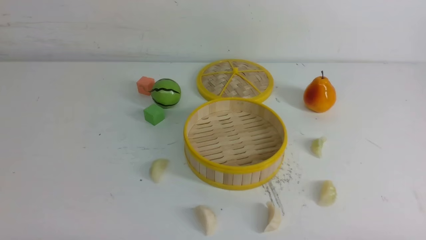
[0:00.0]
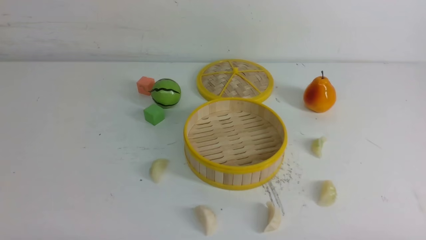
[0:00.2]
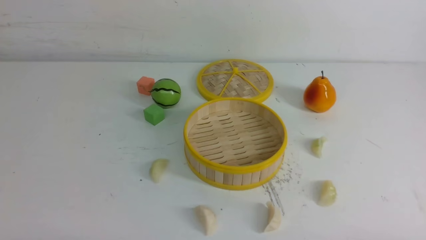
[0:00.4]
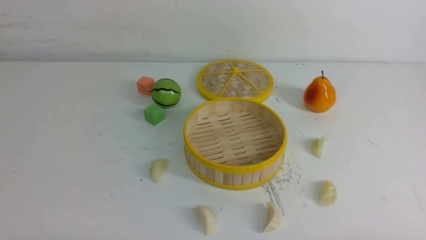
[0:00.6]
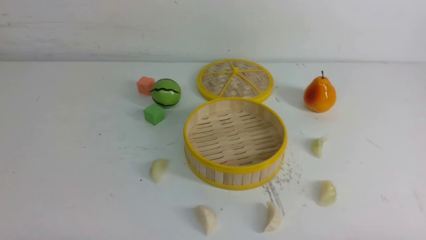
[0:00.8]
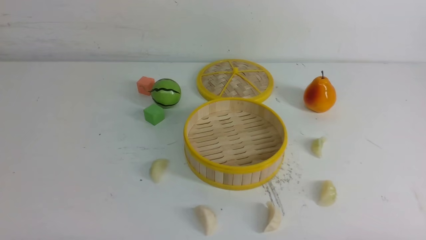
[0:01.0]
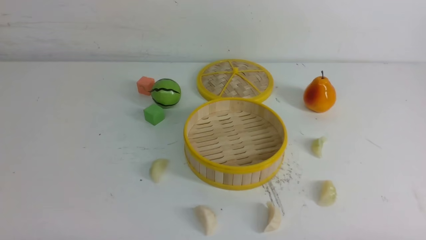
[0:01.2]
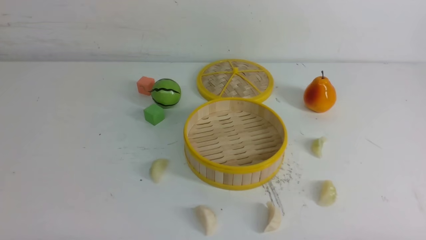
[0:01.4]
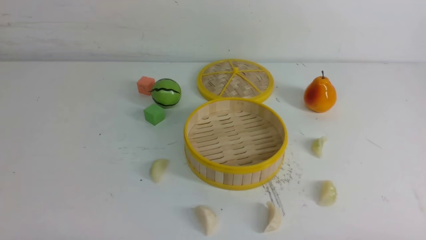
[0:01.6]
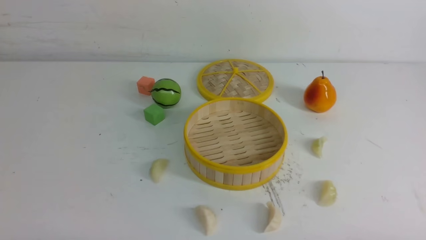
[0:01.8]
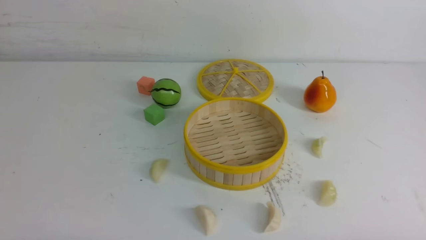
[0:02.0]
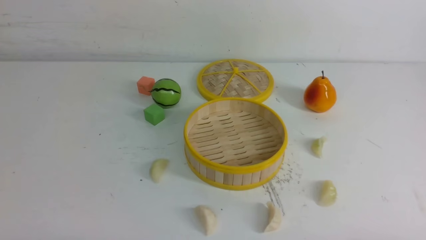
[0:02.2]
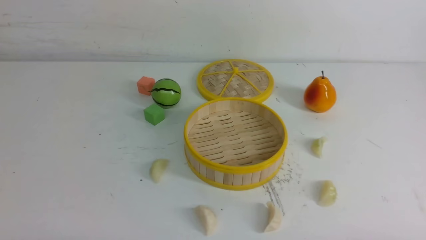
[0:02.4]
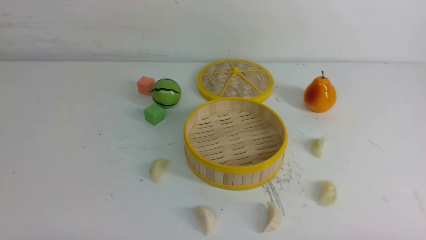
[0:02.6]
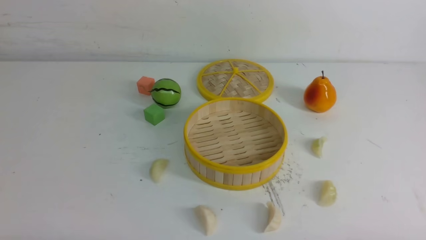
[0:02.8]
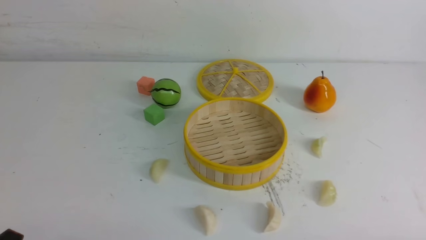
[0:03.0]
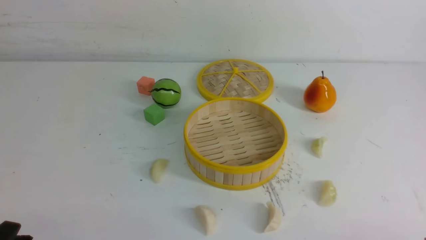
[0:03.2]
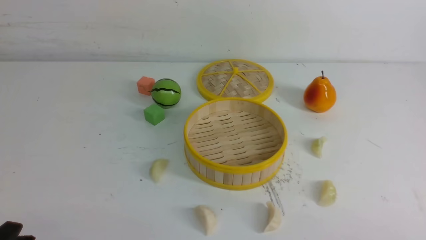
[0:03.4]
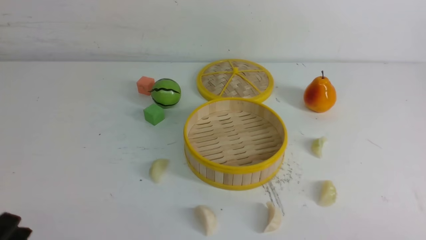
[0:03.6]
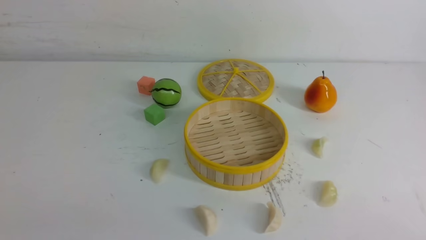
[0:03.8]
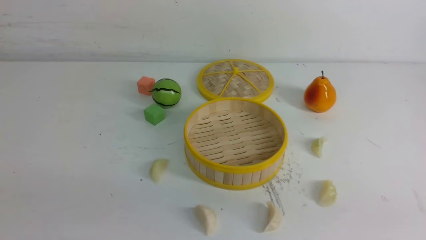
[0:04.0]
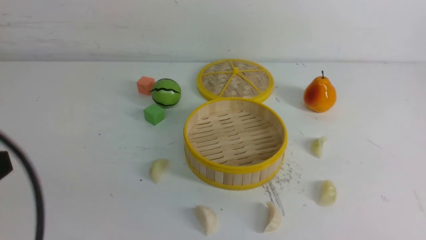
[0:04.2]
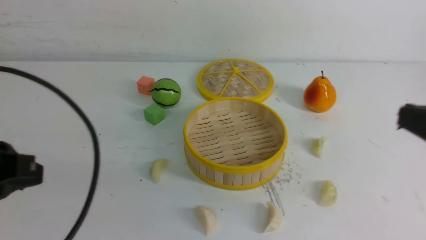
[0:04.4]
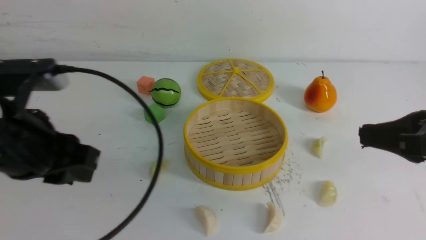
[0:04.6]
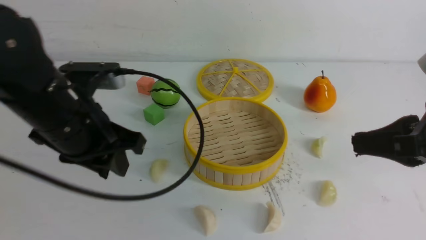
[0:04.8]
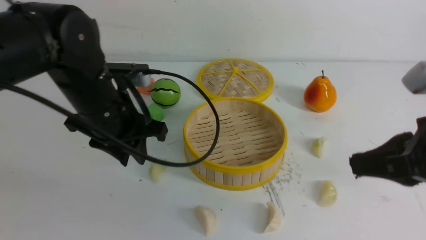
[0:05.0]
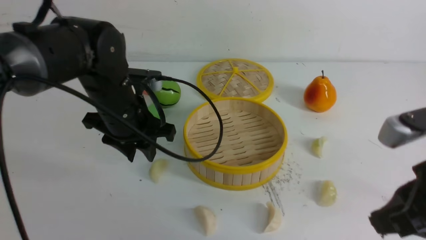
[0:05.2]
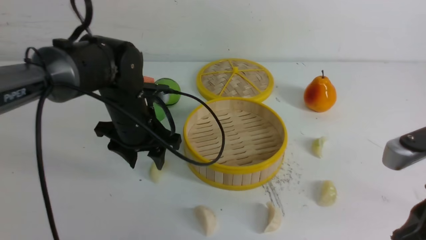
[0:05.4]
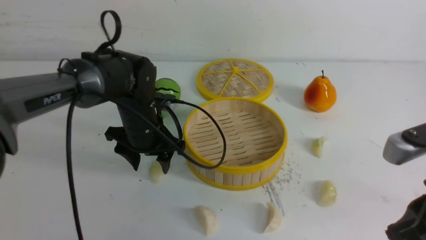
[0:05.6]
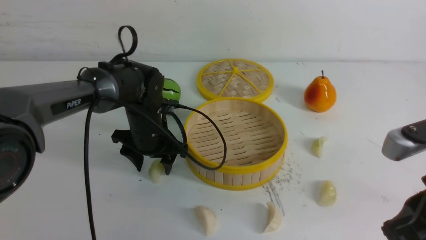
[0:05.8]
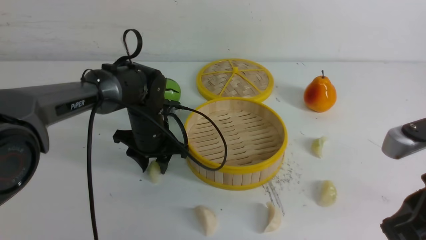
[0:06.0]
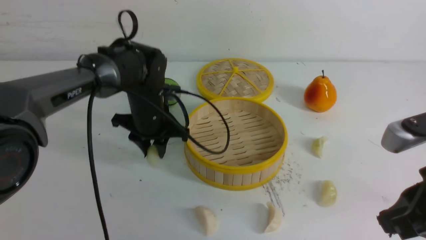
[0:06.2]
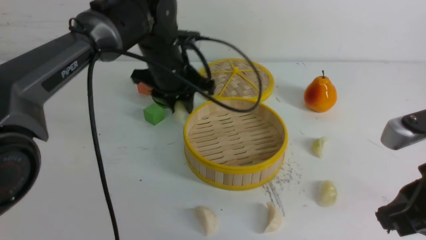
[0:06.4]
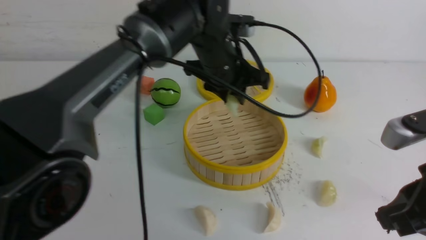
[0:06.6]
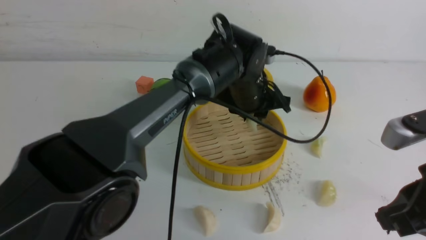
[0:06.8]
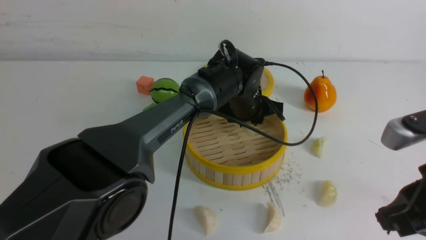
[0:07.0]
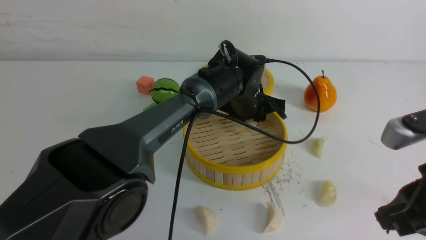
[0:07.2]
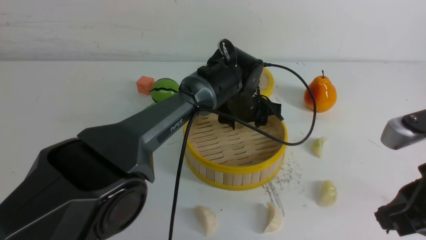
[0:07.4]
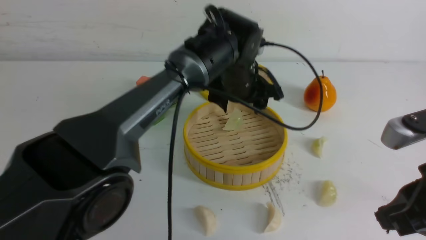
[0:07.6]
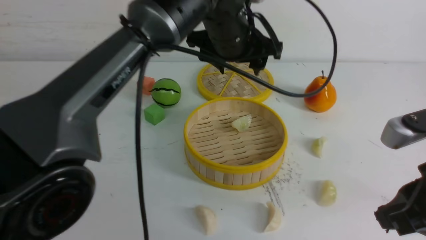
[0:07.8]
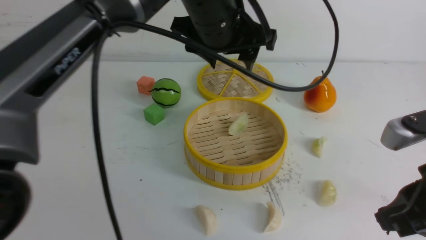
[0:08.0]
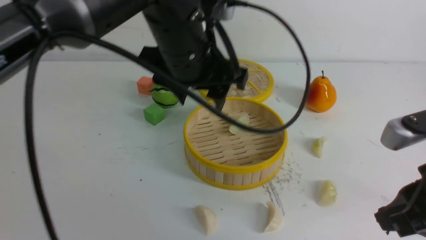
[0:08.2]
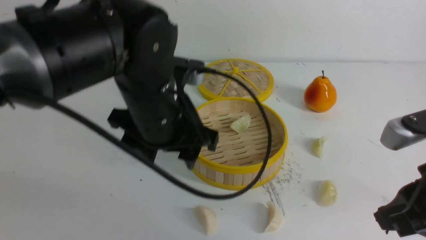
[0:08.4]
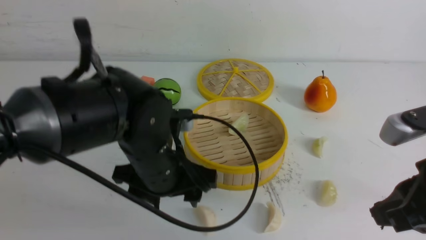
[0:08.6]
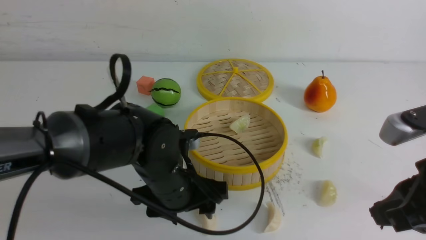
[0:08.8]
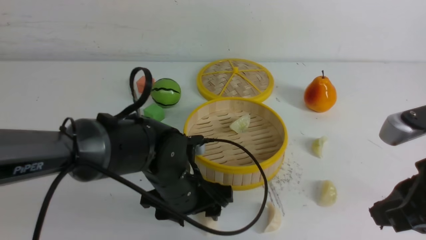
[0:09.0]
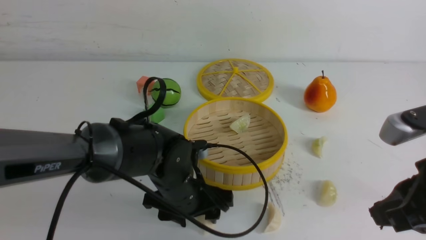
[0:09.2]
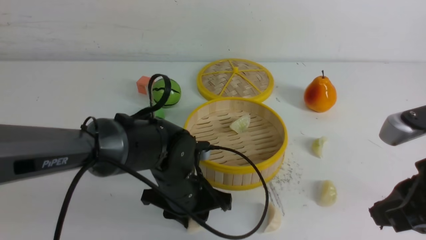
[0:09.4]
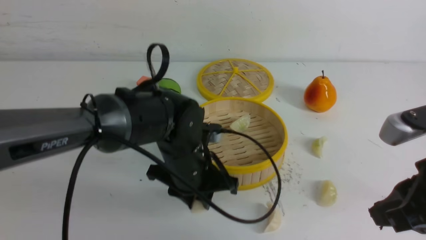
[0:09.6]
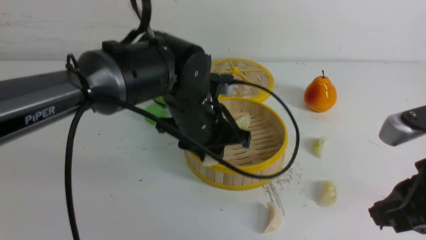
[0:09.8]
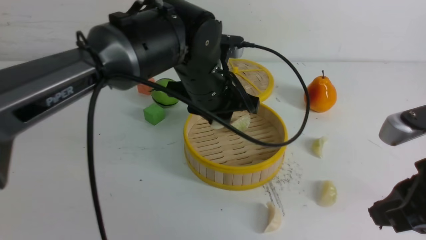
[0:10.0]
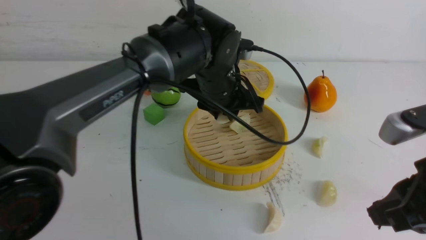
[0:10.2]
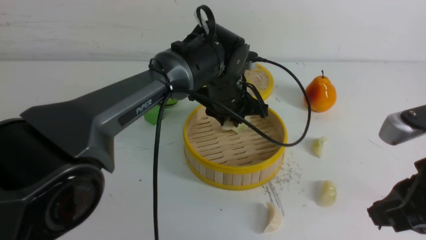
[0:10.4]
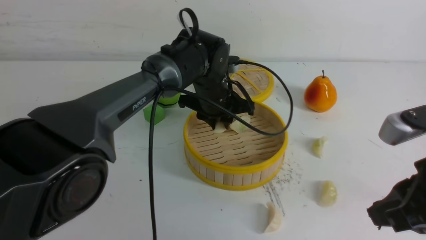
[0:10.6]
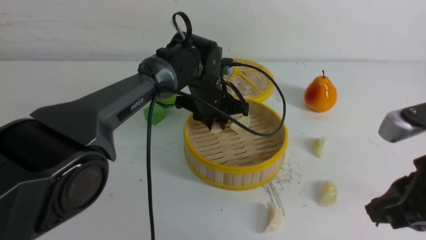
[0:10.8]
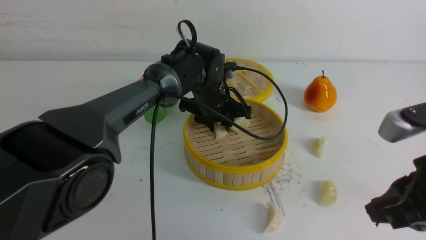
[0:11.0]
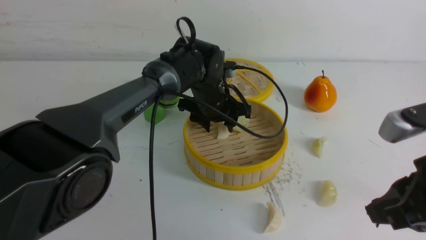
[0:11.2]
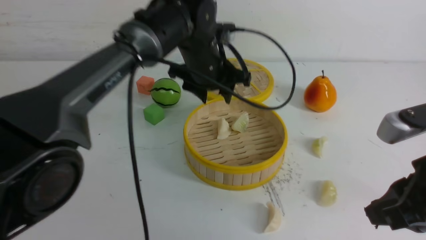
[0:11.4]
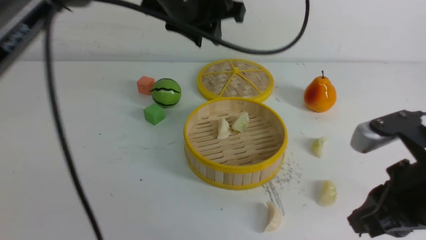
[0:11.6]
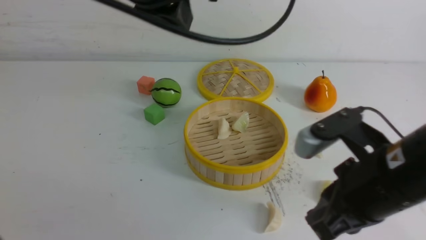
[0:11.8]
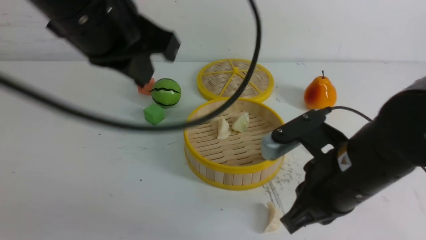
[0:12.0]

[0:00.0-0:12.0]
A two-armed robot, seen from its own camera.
Task of the whole recording: put the dumplings into the steamer on the white table.
Step, 0:00.0 to 0:06.0: use the left arm to grab a dumpling.
Step, 0:06.2 to 0:07.4: use the left arm to put the dumpling into the steamer.
Step, 0:07.6 to 0:09.4: use the left arm to grab a dumpling.
Step, 0:09.6 to 0:11.0: use the left arm to put the dumpling into the steamer.
0:00.0 to 0:01.6: Neither gripper changes place.
0:03.0 to 0:04.4: Both grippers travel together upward and forward, about 20 cm. The right gripper closes up.
0:04.4 to 0:06.0: The right gripper ends up some 5 cm from where it was, while the left gripper shifts roughly 35 cm forward, downward and to the right.
0:06.0 to 0:07.6: The left gripper goes about 20 cm to the right and upward.
0:07.6 to 0:09.0: The left gripper heads backward, downward and to the left, covering about 20 cm.
0:09.0 to 0:10.4: The left gripper is displaced forward, upward and to the right by some 15 cm, and closes its fingers.
0:10.4 to 0:12.0: The left gripper moves upward, backward and to the left, approximately 30 cm, and closes. The right gripper goes about 10 cm to the left.

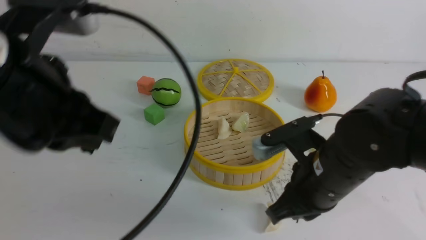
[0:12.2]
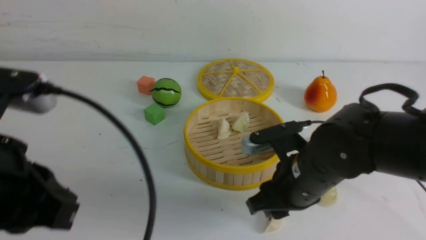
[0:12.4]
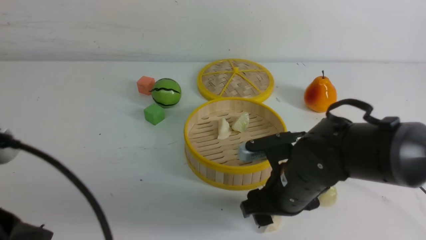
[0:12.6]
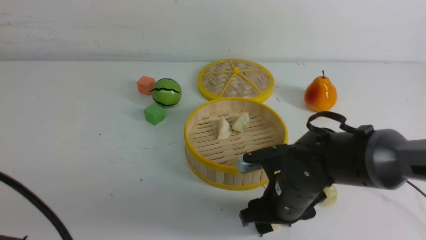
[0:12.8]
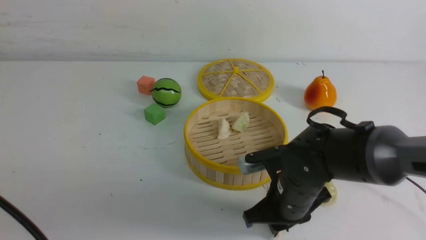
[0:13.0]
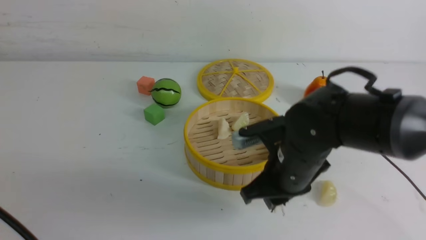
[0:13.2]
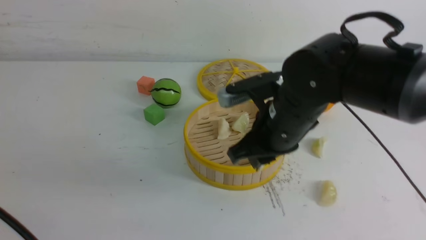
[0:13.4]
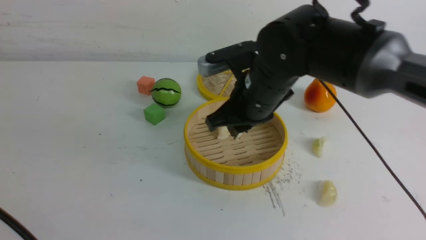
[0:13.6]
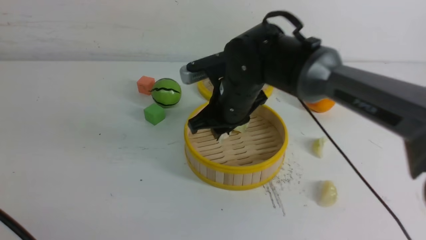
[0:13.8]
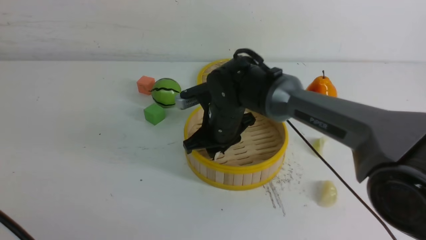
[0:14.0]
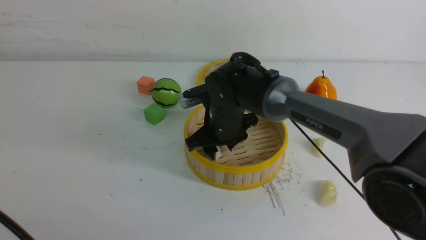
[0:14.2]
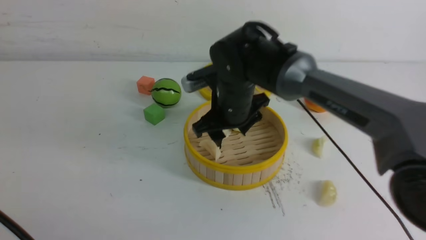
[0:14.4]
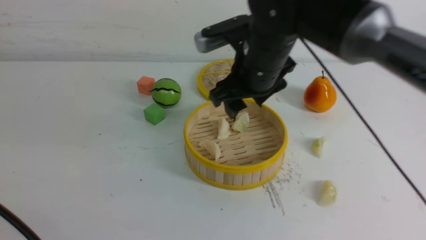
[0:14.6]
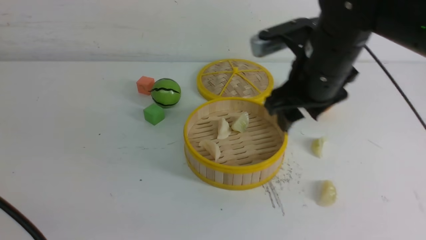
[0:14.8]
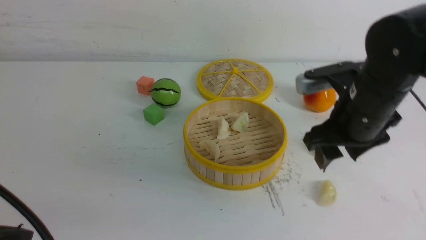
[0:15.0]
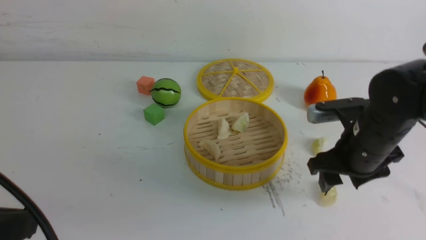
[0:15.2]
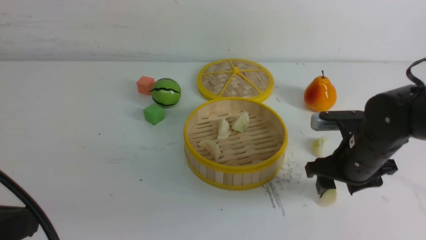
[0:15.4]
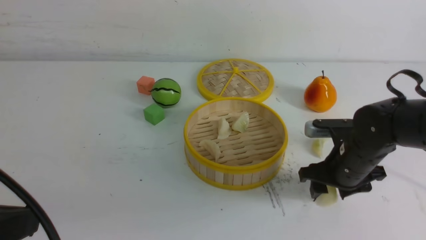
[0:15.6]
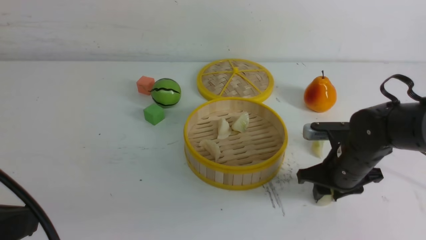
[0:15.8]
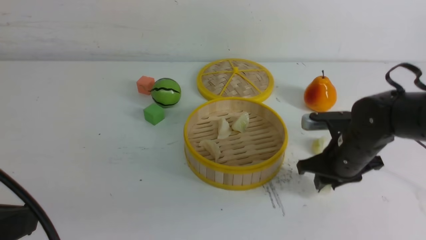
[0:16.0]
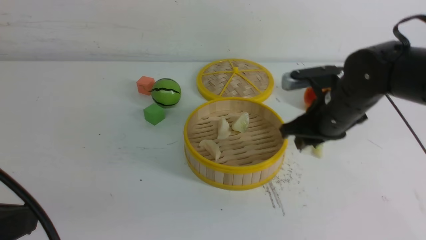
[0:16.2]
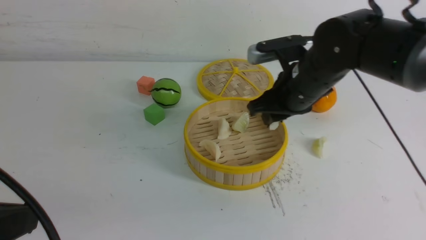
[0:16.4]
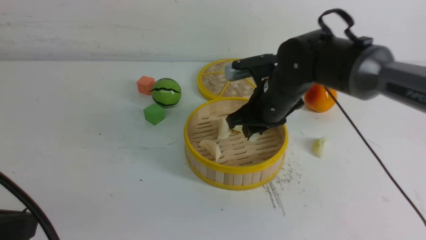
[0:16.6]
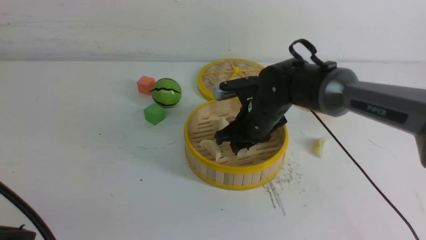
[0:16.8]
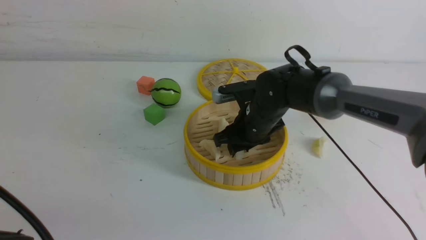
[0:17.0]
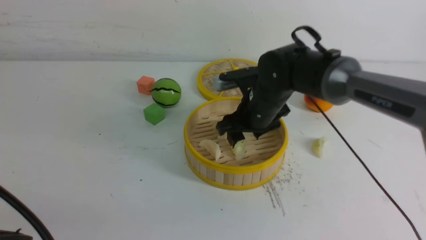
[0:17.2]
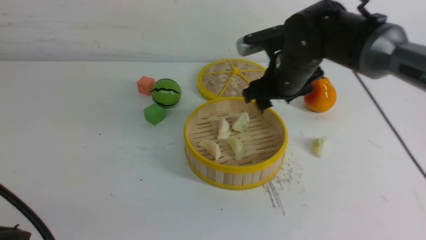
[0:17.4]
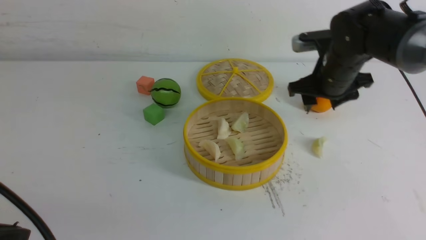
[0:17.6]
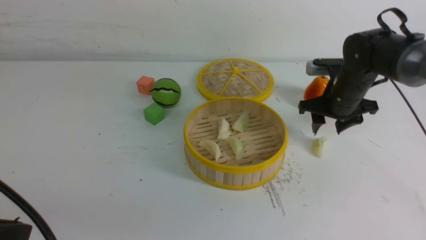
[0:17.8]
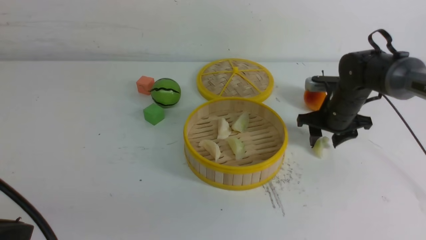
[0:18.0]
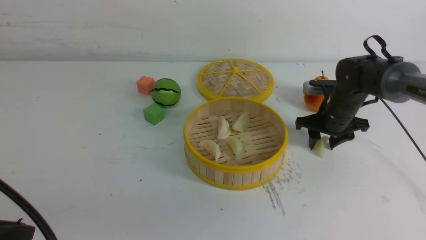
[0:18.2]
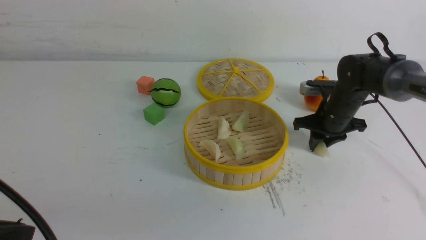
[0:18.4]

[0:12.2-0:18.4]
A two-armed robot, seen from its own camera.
Task of the whole recording: put the dumplings into the steamer on the white table.
Step, 0:13.0 to 0:14.0: use the right arm to put the dumpling into the steamer.
Step, 0:14.2 to 0:16.0: use the right arm to grab a dumpling.
Step, 0:16.2 to 0:17.0: use the right arm to put the dumpling into the steamer.
Step, 0:17.2 to 0:18.4: use the right arm to grab a dumpling.
0:12.2 to 0:13.8: The right gripper is displaced forward and to the left by some 15 cm, and opens, then closes once more. The left gripper shifts some 15 cm backward, downward and to the left.
0:13.8 to 0:15.4: The right gripper travels to the right by some 20 cm, and opens.
0:15.4 to 0:16.8: The right gripper moves to the left and forward, approximately 15 cm, and closes its fingers.
0:16.8 to 0:18.4: The right gripper moves to the right, approximately 15 cm, and opens, then closes again.
